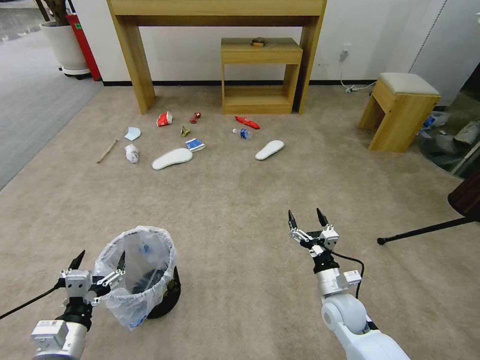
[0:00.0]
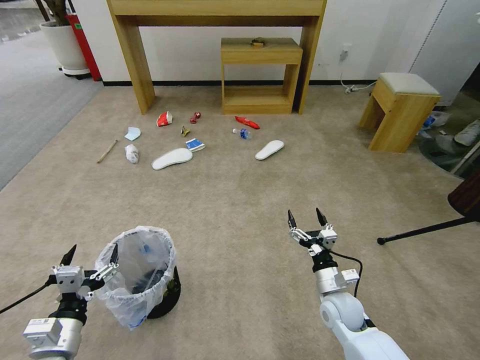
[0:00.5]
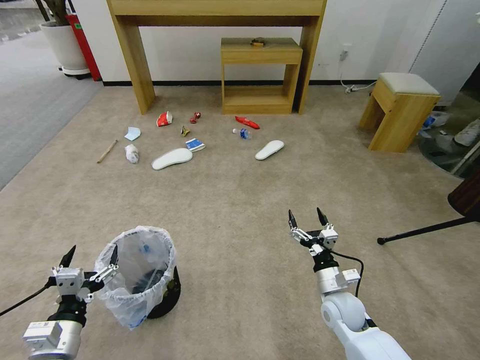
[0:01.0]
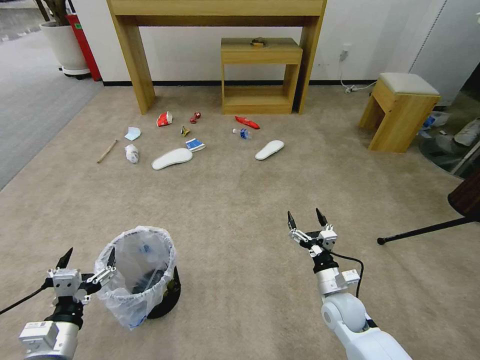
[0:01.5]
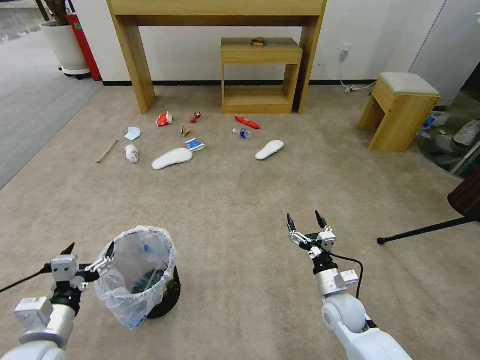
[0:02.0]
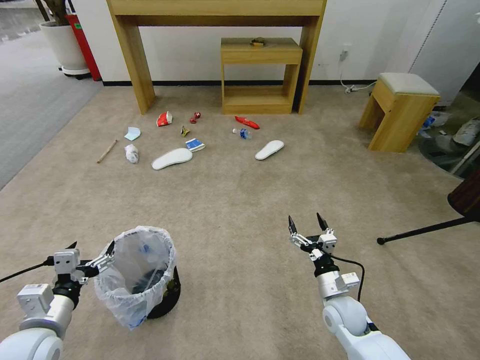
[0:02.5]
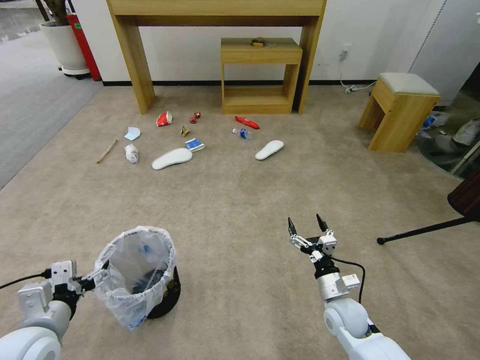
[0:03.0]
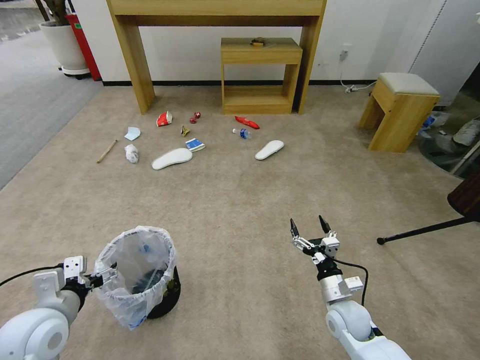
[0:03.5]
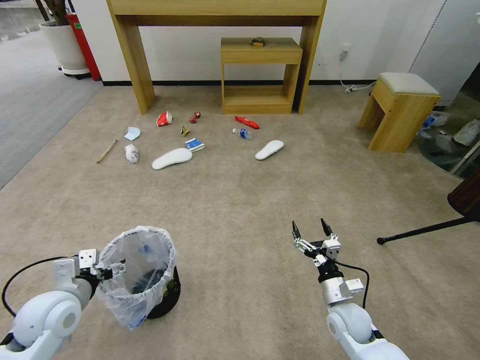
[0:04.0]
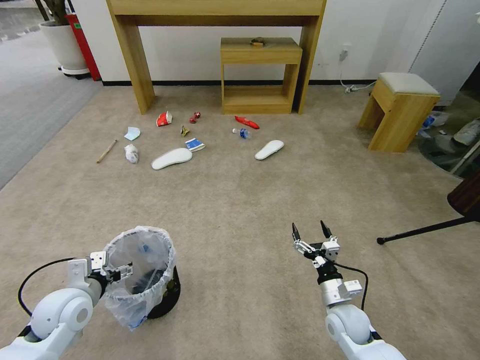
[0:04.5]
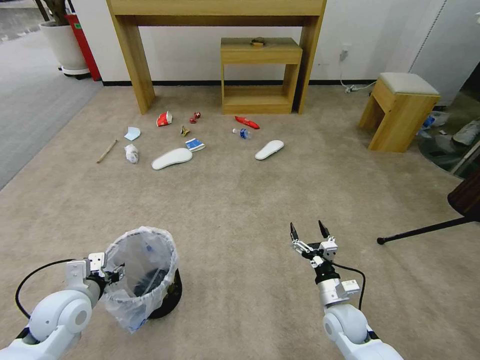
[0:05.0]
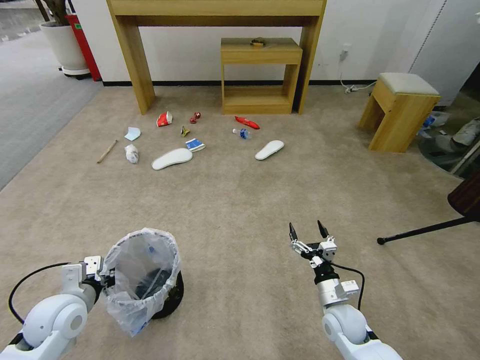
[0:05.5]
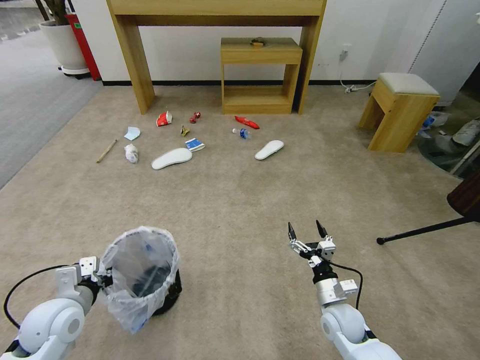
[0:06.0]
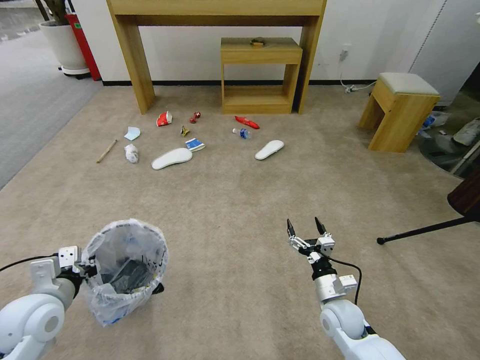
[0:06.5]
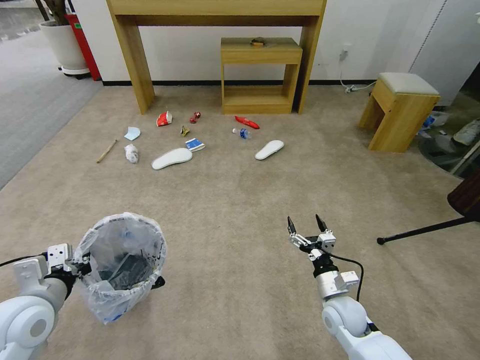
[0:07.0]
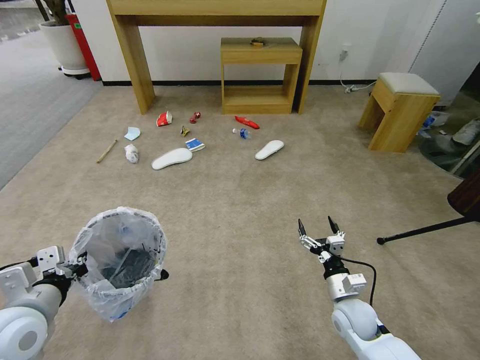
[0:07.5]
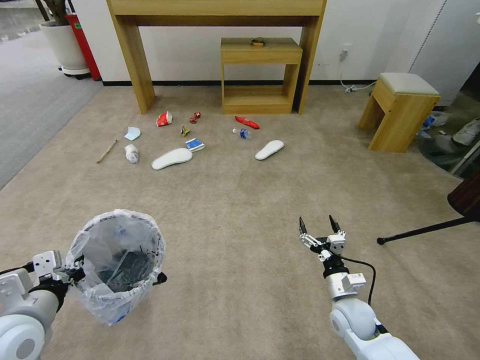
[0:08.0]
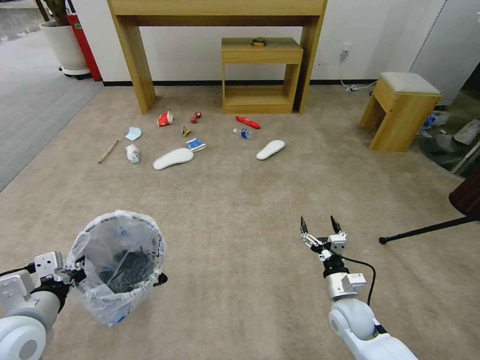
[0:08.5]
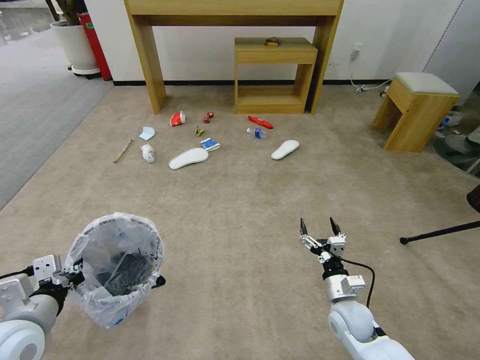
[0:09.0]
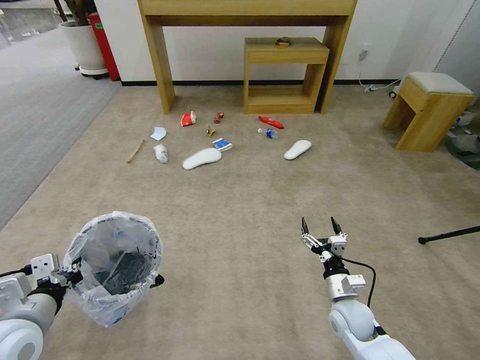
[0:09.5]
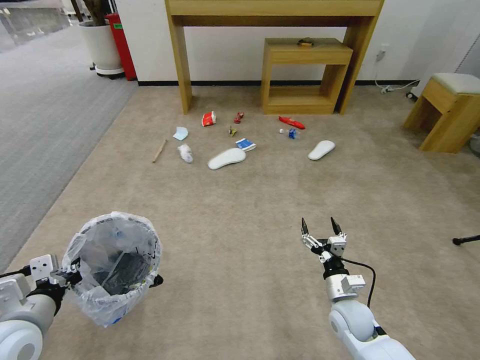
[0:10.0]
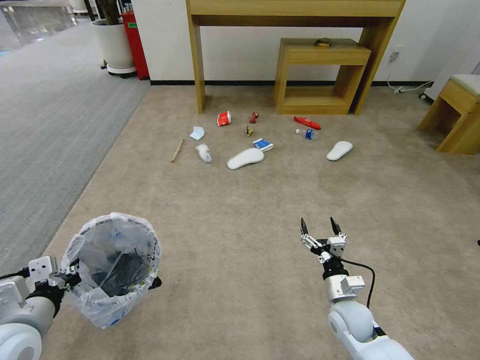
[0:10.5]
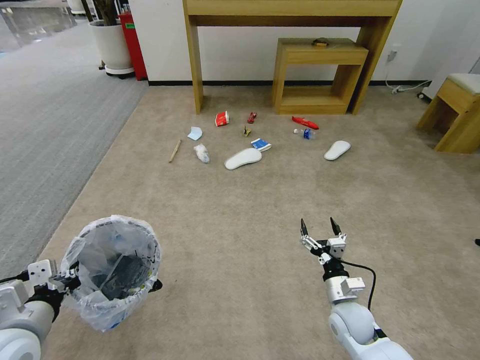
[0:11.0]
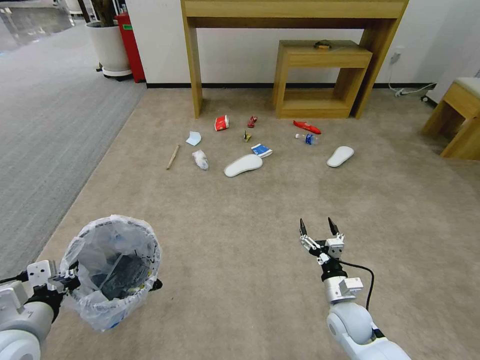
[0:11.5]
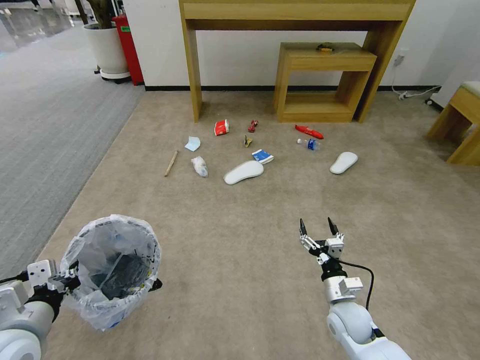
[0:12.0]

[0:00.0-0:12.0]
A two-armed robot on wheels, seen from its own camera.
Task of the whole recording: Pick up the trash bin and place the garbage on the floor into it.
0:02.0 to 0:04.0: The left gripper moves forward, approximately 10 cm.
0:04.0 to 0:06.0: The left gripper closes its fingers.
0:06.0 to 0:08.0: The left gripper moves upward and backward, some 10 cm.

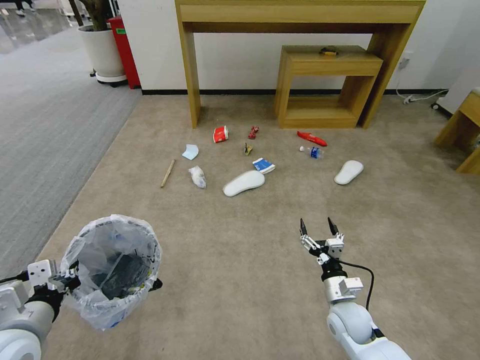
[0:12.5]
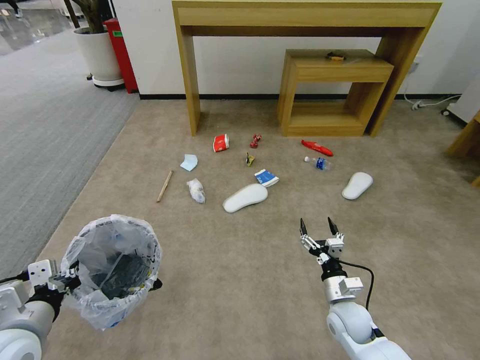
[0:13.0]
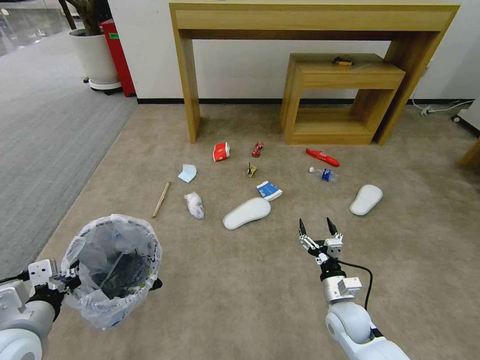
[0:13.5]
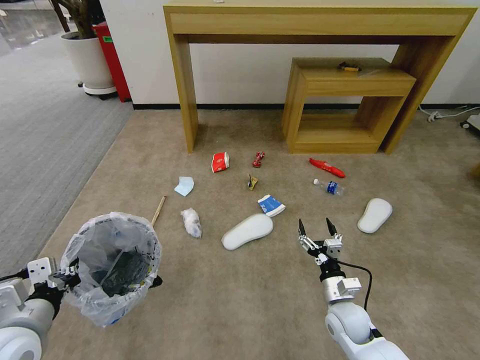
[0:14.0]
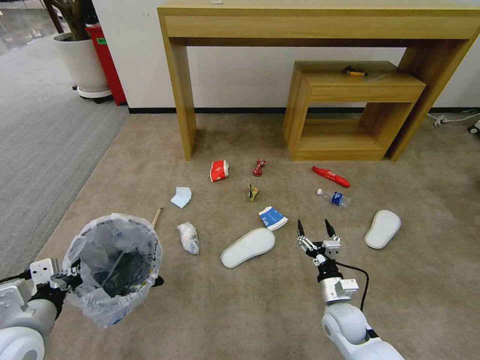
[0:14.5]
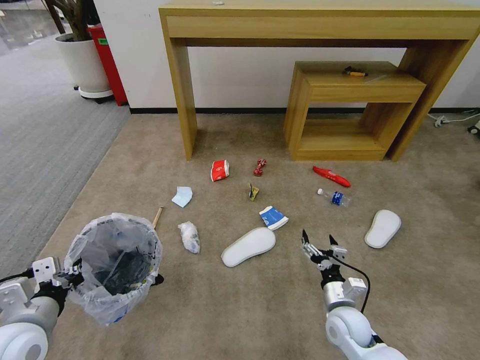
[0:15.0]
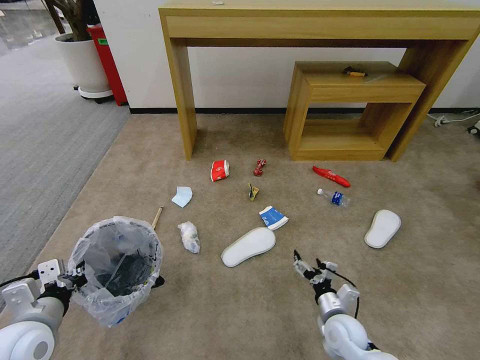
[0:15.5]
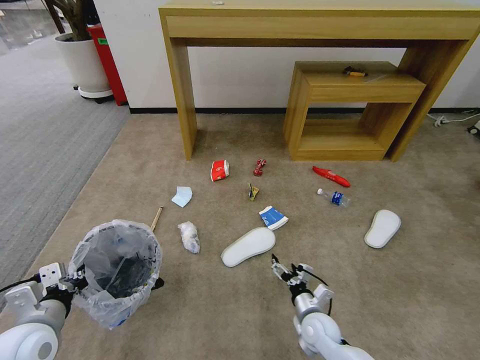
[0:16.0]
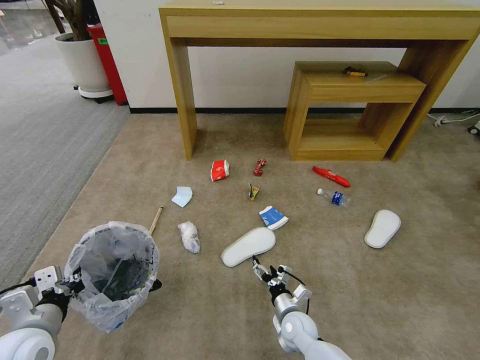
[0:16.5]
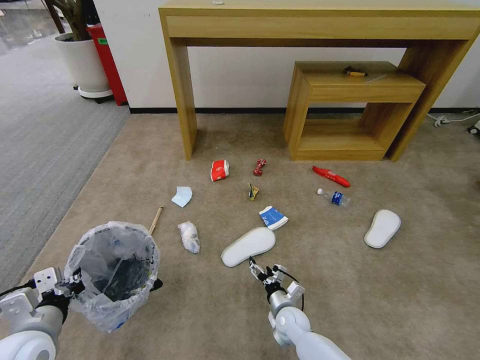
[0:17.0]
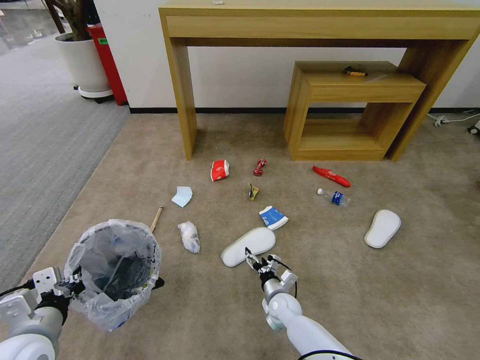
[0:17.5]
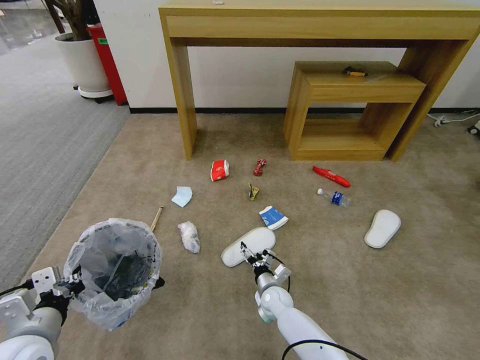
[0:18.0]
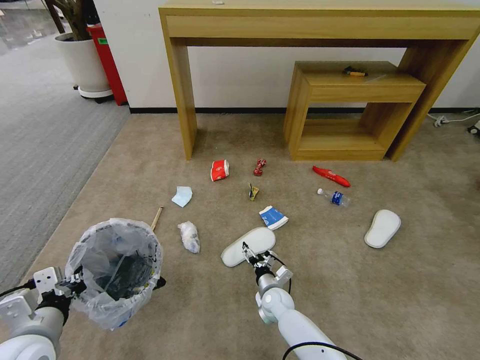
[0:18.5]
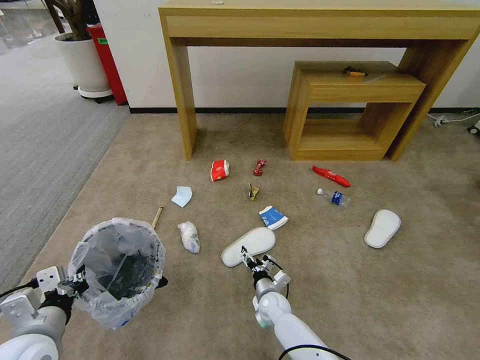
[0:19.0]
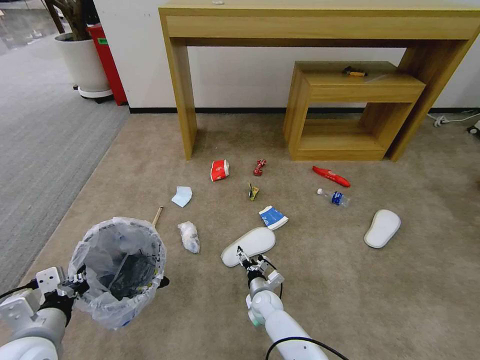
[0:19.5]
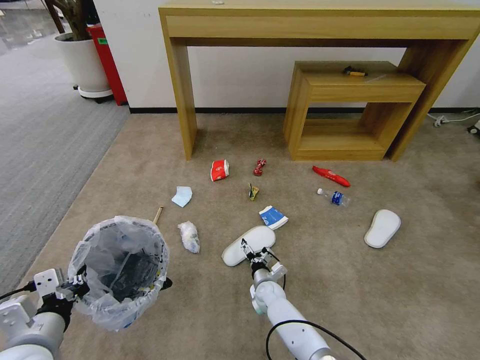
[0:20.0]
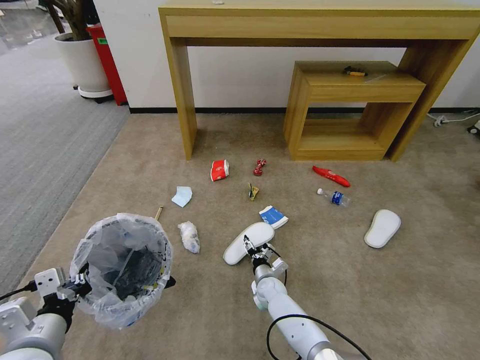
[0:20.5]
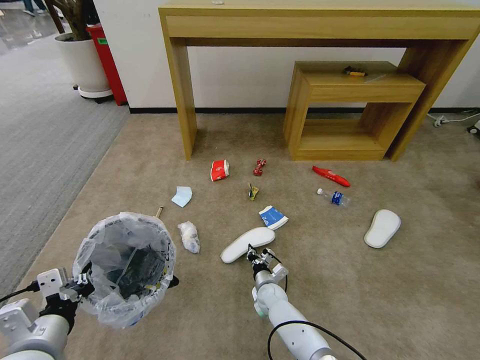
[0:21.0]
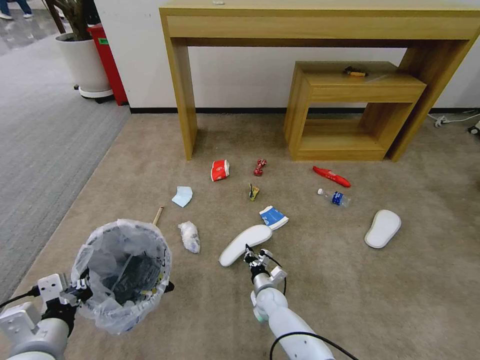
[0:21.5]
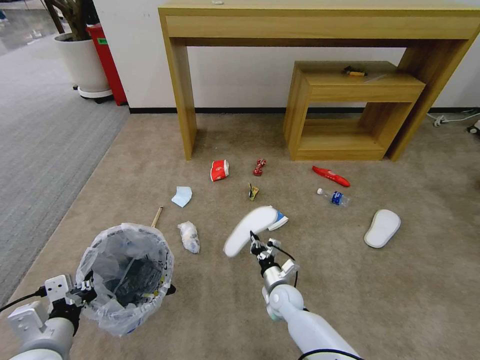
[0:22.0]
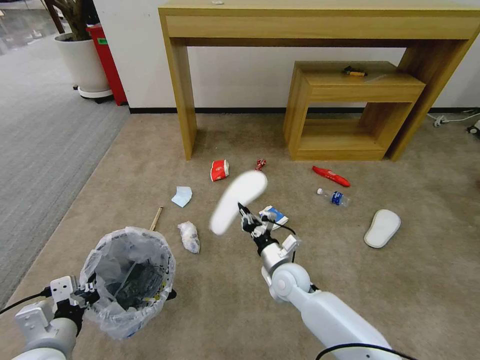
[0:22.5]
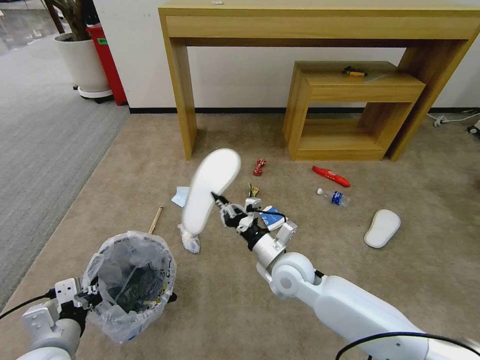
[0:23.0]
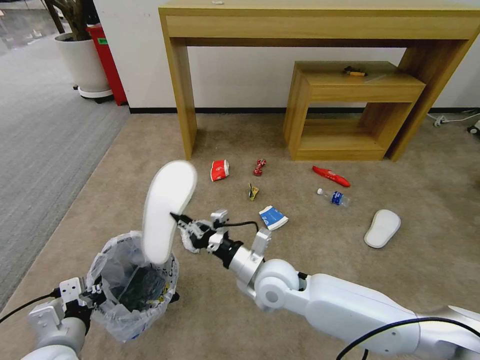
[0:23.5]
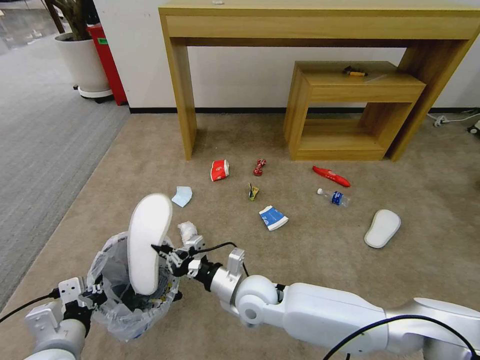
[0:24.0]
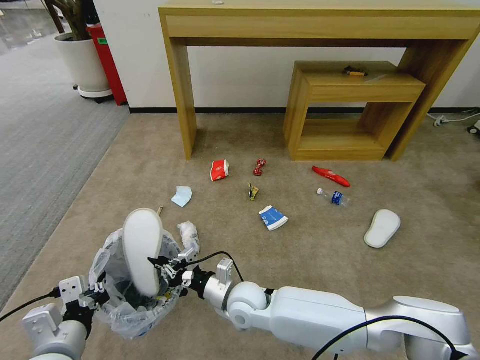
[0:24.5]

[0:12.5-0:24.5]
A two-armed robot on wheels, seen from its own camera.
Task of the whole recording: Pick up the trash bin and place the garbage on the floor into it.
0:14.5 to 0:16.5: The right gripper is displaced to the left and downward by approximately 10 cm.
0:16.5 to 0:18.5: The right gripper travels forward by about 5 cm.
0:18.5 to 0:20.5: The grippers move only a little.
0:20.5 to 0:22.5: The right gripper goes some 20 cm upward, and closes up.
0:22.5 to 0:24.5: The right gripper shifts approximately 15 cm to the left and backward.

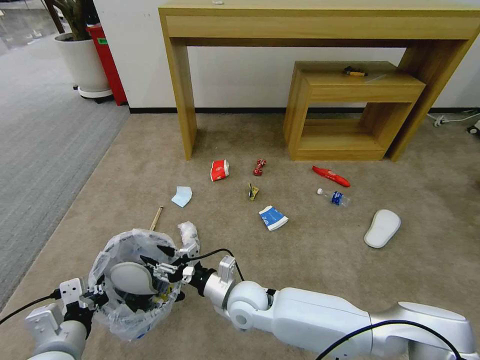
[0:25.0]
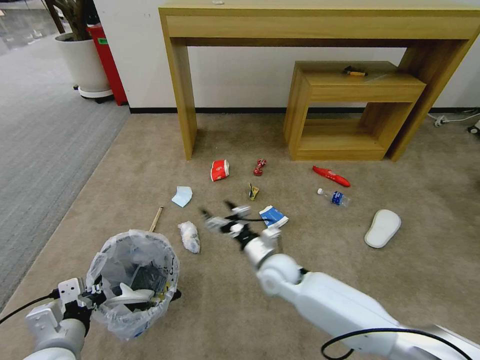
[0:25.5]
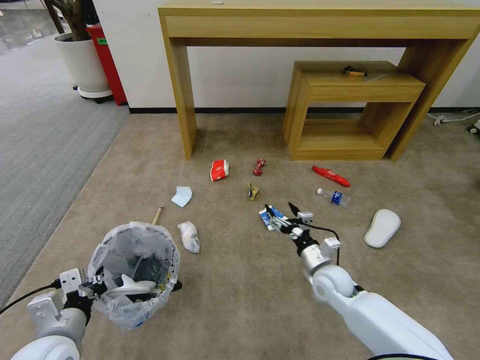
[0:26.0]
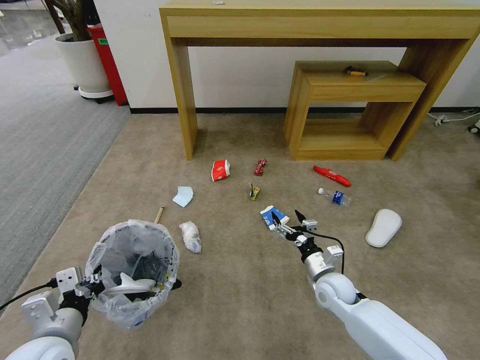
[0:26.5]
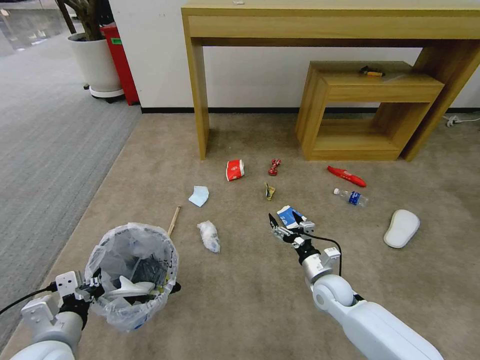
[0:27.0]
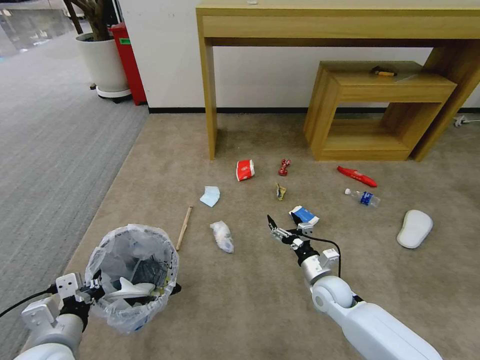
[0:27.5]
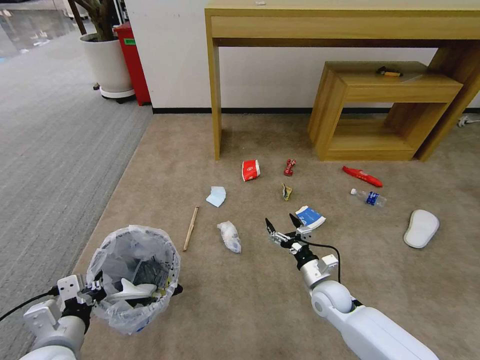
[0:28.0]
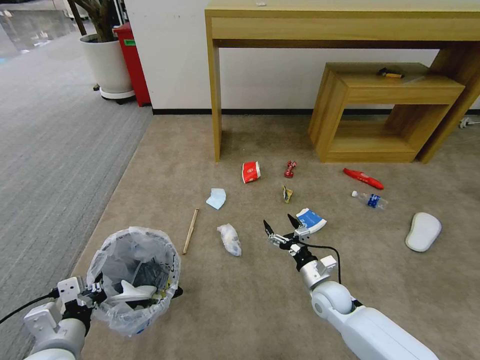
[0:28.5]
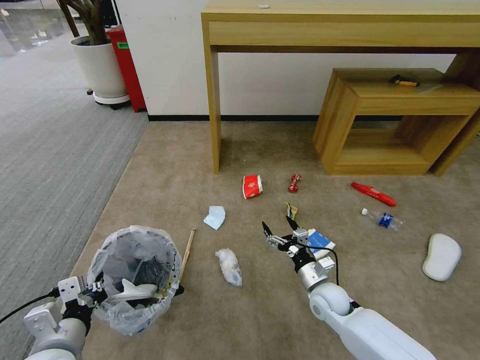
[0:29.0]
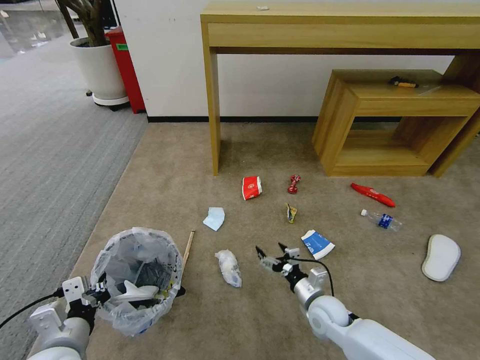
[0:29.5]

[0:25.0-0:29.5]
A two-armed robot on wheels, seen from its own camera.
Task of the whole recording: Pick up the trash bin and place the garbage on the floor into it.
0:25.0 to 0:27.0: The right gripper travels to the right by about 25 cm, and opens.
0:27.0 to 0:29.5: The right gripper shifts by some 5 cm.
